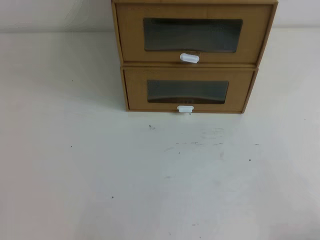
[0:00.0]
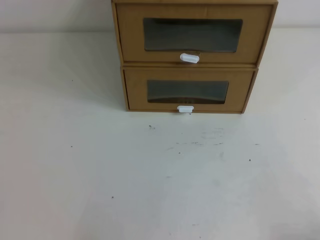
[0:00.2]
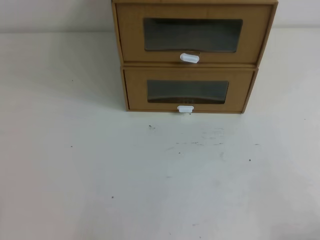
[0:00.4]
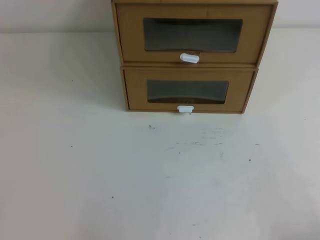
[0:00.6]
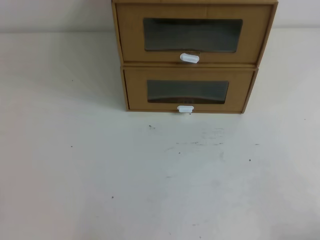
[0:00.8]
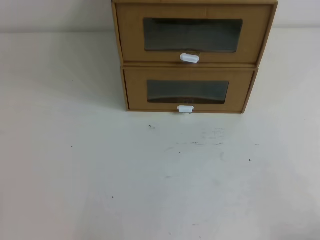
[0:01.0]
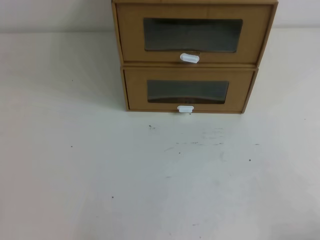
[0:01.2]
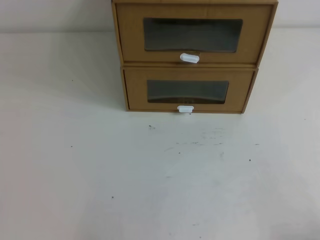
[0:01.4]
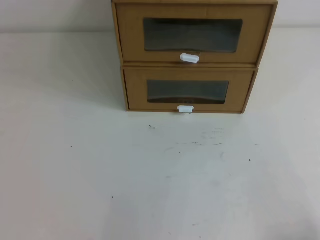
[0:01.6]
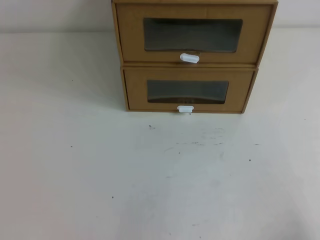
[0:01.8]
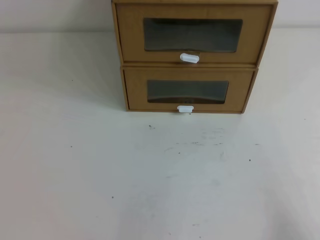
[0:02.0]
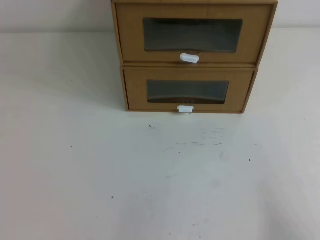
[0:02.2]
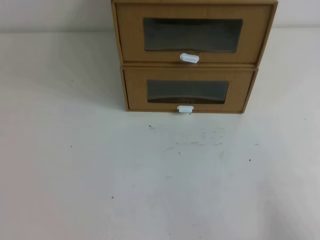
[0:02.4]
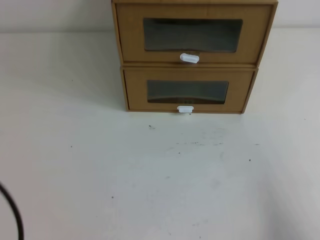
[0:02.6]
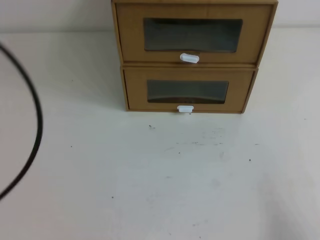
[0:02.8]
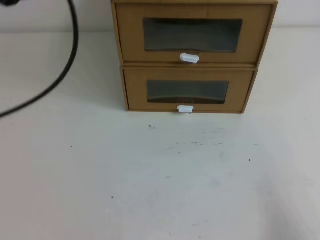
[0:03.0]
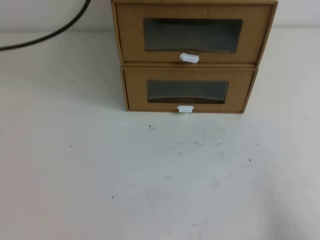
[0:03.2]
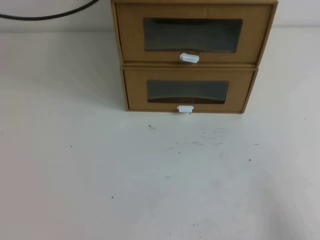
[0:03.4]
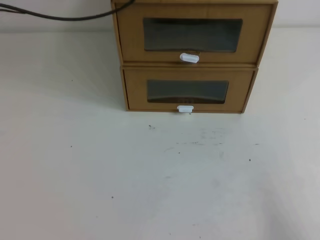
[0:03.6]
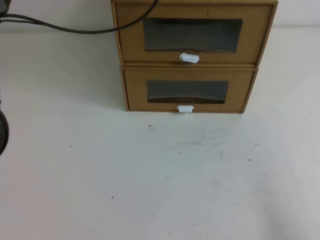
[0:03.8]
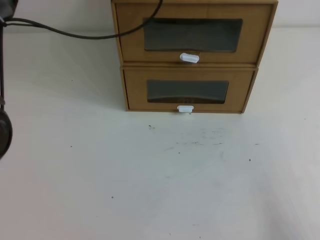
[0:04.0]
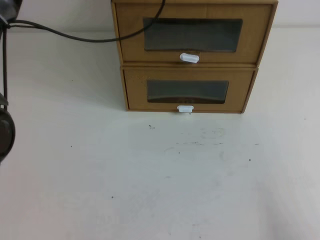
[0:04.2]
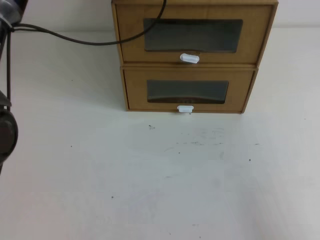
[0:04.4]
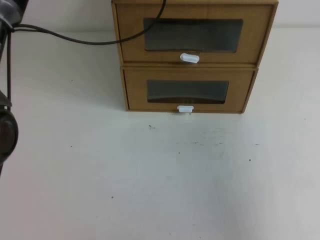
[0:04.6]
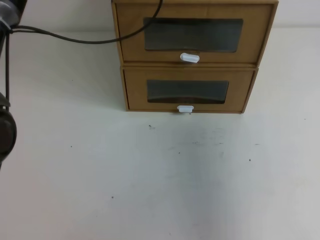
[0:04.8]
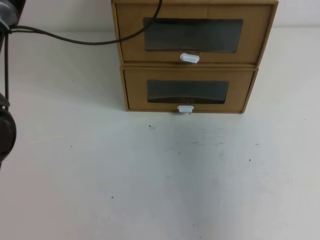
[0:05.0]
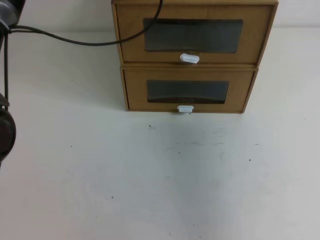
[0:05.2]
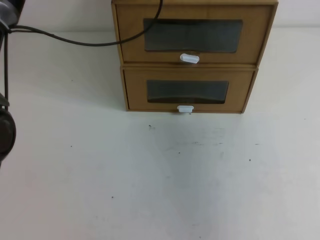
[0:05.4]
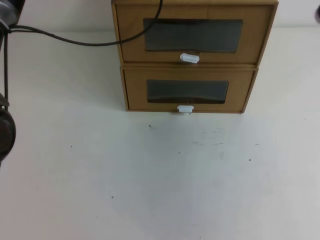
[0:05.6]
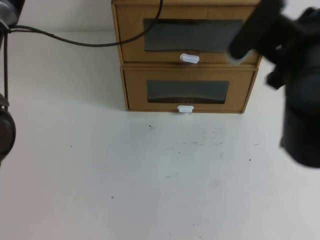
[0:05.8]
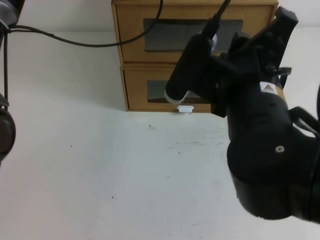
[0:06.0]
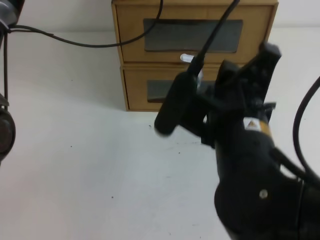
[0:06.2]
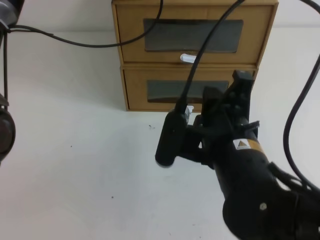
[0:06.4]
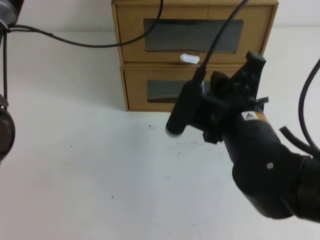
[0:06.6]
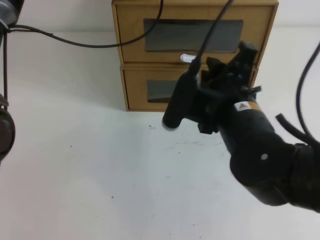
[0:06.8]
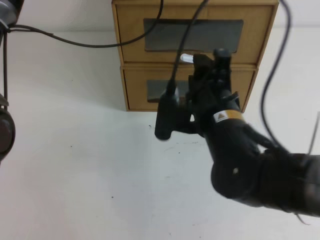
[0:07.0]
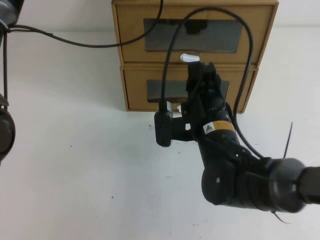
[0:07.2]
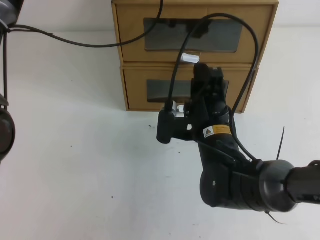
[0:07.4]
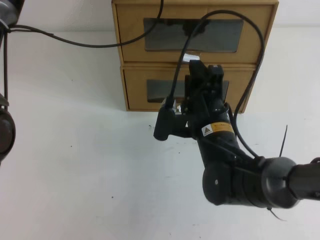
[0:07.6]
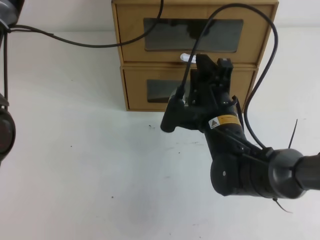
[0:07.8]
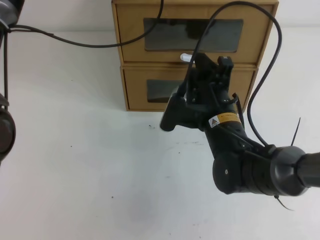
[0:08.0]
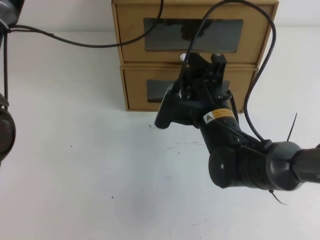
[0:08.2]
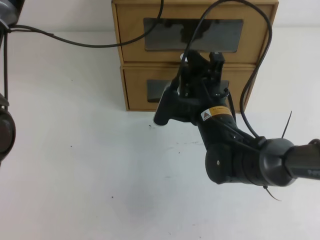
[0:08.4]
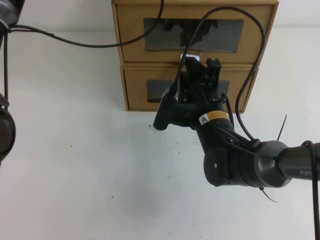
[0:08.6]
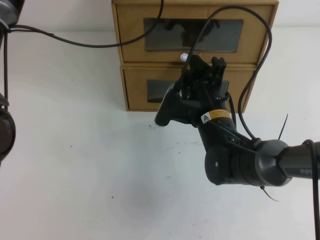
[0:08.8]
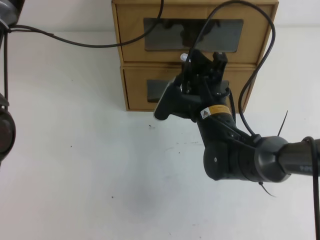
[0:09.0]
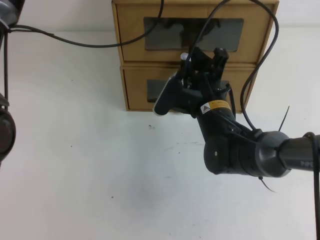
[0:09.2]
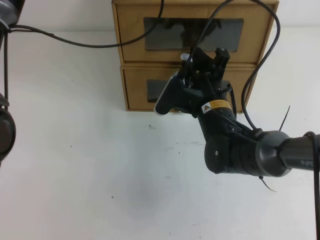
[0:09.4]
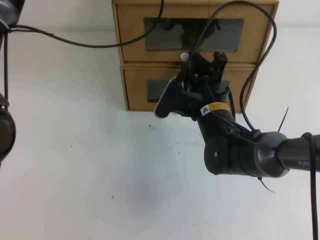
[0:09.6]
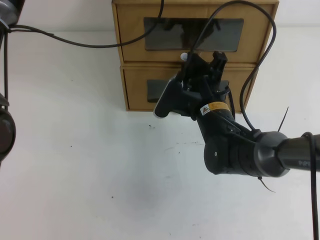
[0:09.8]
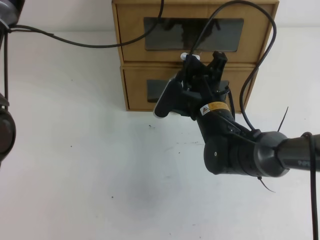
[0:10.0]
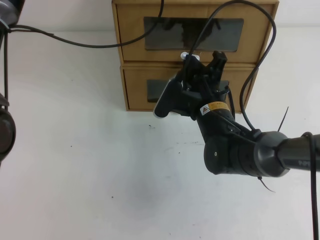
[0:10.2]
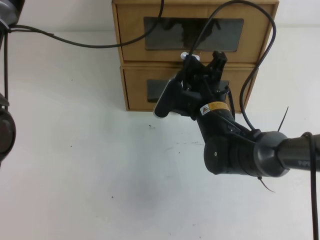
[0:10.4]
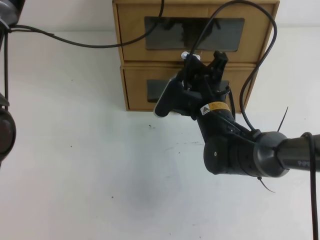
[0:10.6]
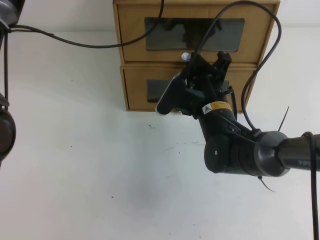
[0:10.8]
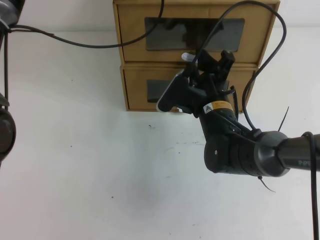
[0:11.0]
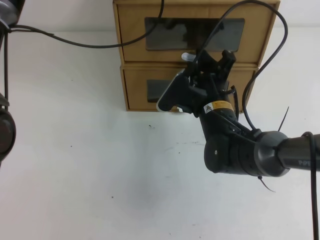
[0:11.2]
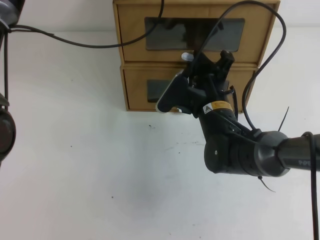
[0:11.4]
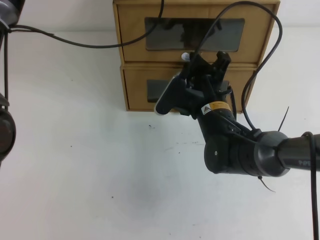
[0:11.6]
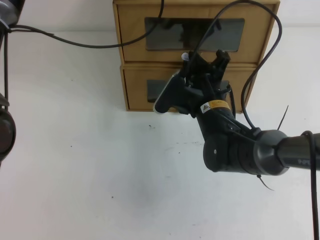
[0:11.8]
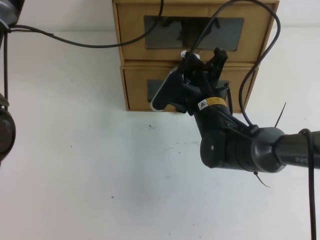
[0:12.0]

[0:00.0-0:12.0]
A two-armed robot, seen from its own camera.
Task of the whole recording: open the shoebox on the table.
0:01.6 to 0:03.0: The left gripper goes about 35 cm upward and forward.
0:03.0 to 0:04.4: The left gripper travels forward and to the right by some 25 cm.
0:04.4 to 0:06.0: The right gripper is displaced to the left, forward and upward by about 30 cm.
0:06.0 to 0:07.6: The right gripper travels downward and forward by some 15 cm, and opens.
0:07.6 to 0:09.0: There are only small adjustments of the grippers.
0:09.0 to 0:10.4: The right gripper closes.
0:10.4 to 0:12.0: The right gripper opens, then closes once more.

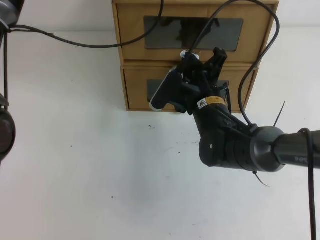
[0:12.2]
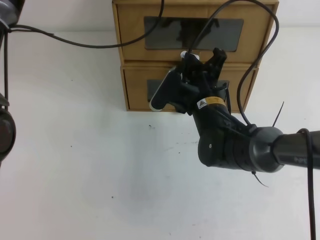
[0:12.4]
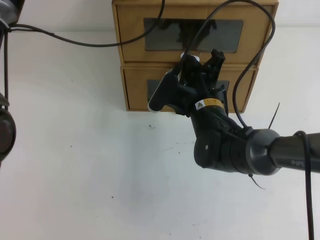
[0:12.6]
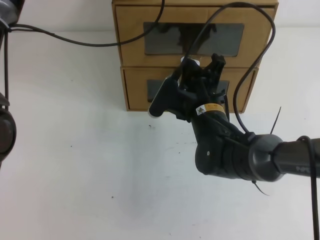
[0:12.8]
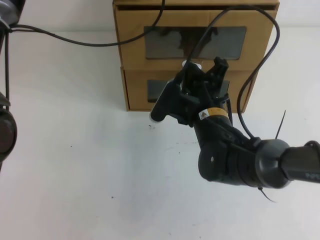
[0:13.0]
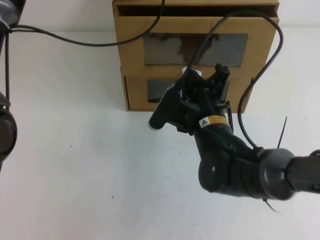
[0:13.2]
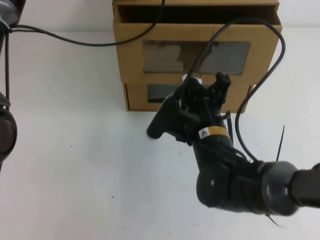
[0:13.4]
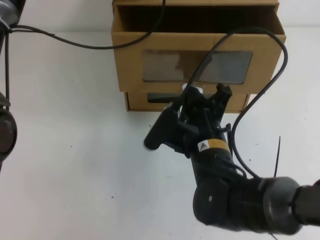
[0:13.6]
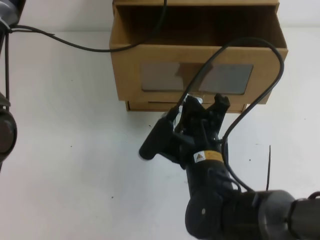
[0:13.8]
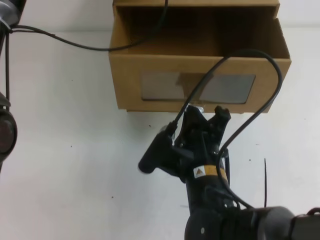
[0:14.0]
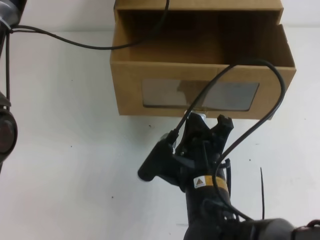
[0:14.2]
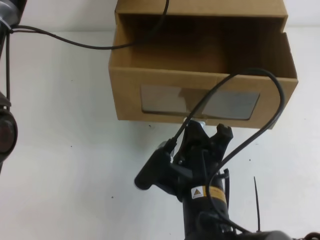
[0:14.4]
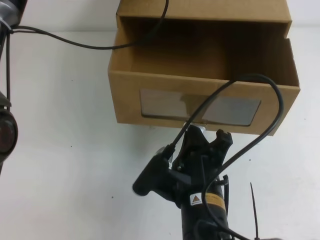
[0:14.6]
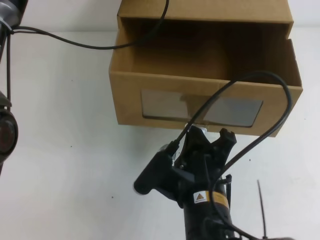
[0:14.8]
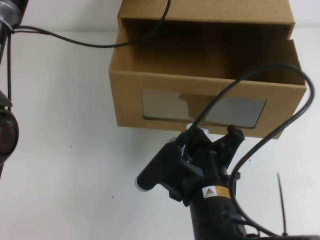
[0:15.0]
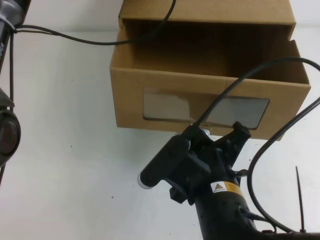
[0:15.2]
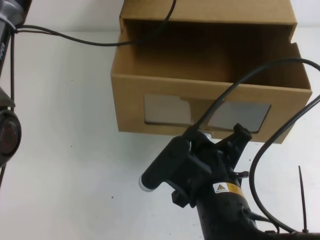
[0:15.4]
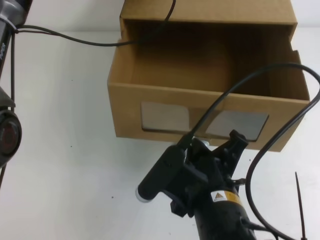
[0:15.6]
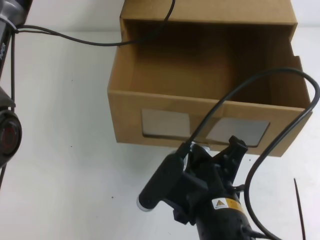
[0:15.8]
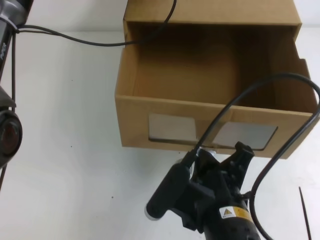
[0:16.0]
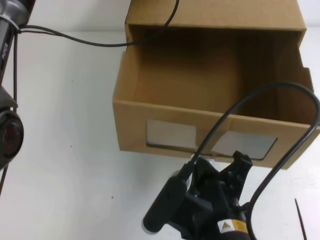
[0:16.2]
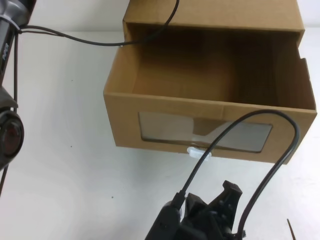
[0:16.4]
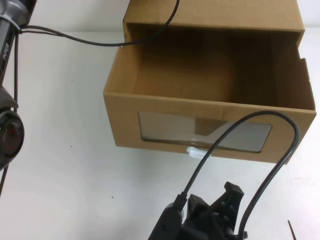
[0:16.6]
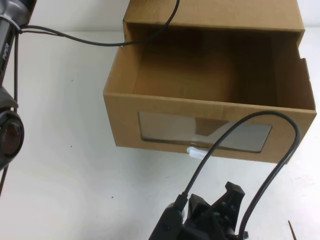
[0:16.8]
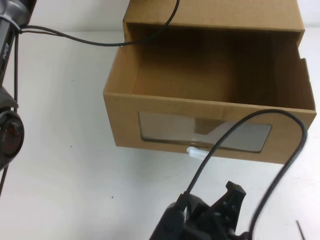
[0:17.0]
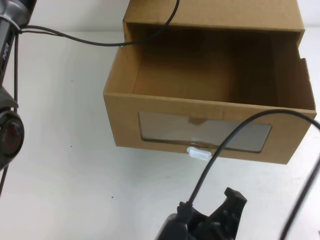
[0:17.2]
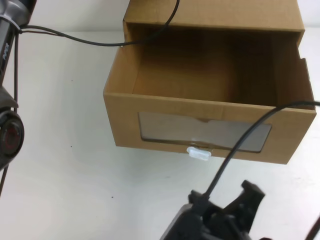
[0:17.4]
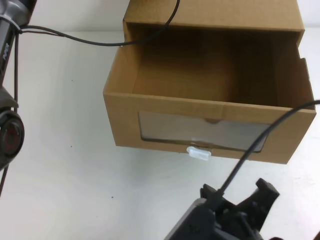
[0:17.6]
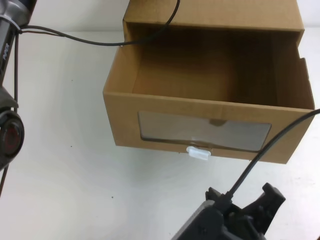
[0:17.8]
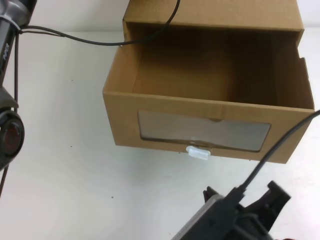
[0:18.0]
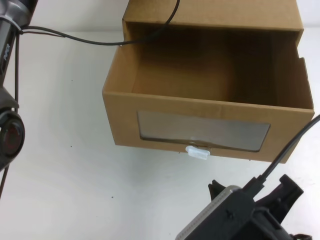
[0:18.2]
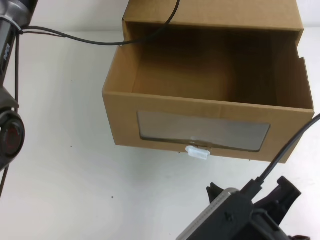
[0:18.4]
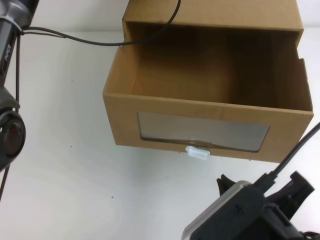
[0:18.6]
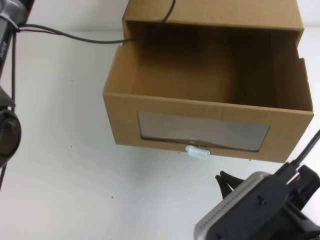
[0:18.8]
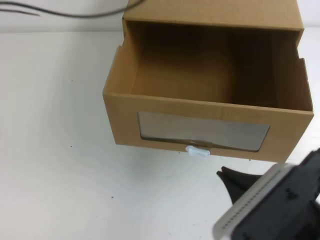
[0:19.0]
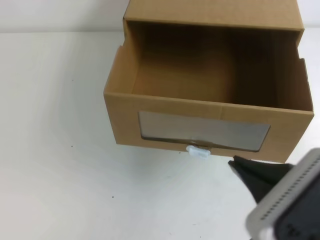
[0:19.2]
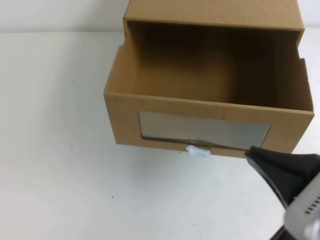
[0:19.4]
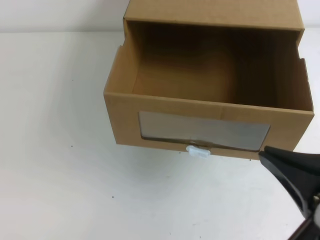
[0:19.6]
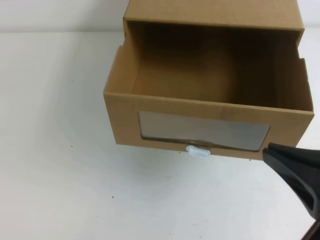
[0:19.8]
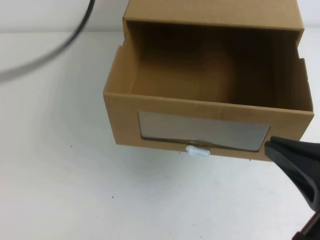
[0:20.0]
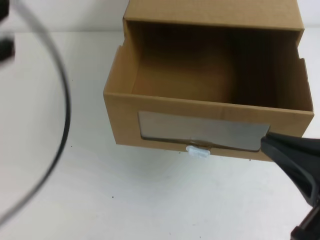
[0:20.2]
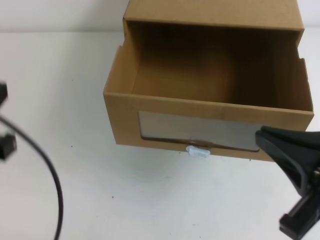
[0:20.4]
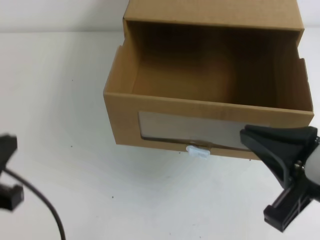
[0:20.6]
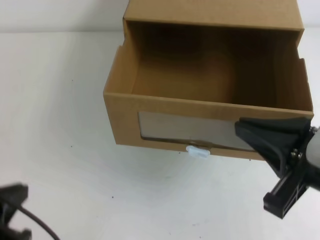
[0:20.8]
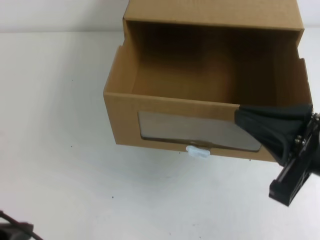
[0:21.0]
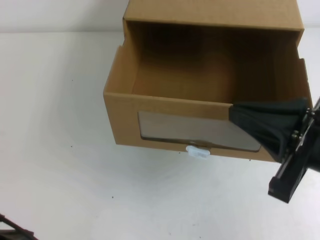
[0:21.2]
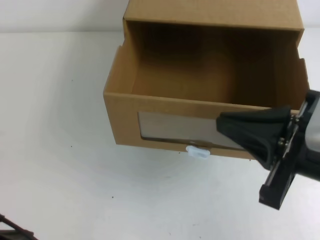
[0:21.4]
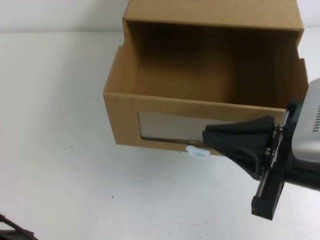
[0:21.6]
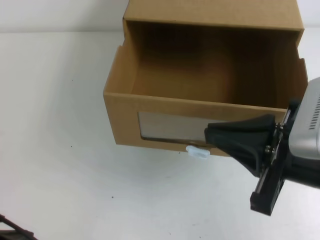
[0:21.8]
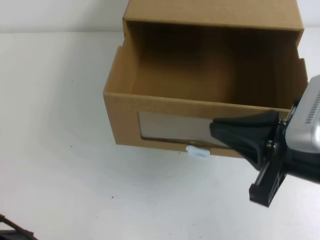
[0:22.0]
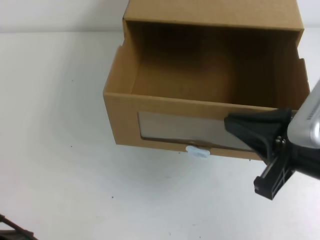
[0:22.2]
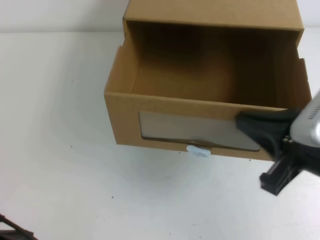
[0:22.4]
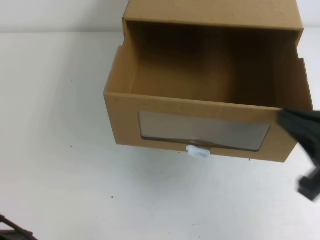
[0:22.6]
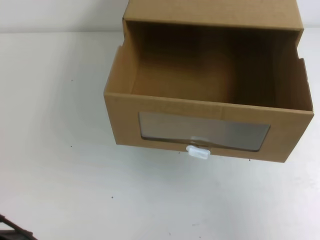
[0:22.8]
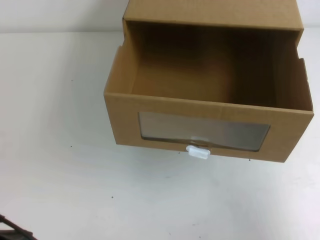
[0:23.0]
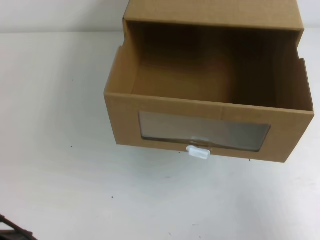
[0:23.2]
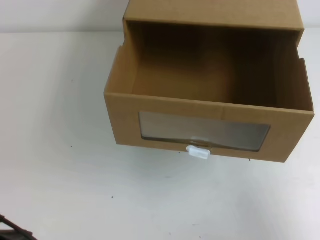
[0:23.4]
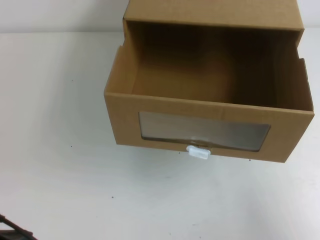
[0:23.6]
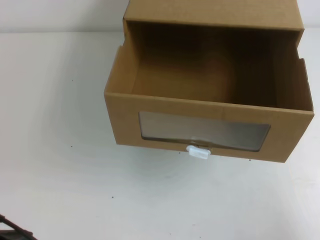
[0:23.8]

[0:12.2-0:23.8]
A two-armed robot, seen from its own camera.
Task of the whole recording: open the shoebox on the table.
0:12.2 to 0:13.6: The right gripper moves backward, some 10 cm.
0:13.6 to 0:15.0: The right gripper shifts roughly 10 cm backward.
0:15.0 to 0:16.6: The right gripper heads backward, covering approximately 5 cm.
0:16.6 to 0:18.0: The right gripper changes place by approximately 5 cm.
0:18.0 to 0:19.4: The left gripper is displaced upward and backward by some 20 cm. The right gripper is displaced upward and to the right by roughly 10 cm.
0:19.4 to 0:21.0: The right gripper goes some 5 cm forward. Meanwhile the left gripper heads backward and downward, covering about 40 cm.
0:21.0 to 0:22.4: The grippers move only a little.
0:22.4 to 0:23.8: The right gripper heads to the right, downward and backward, covering about 20 cm.
